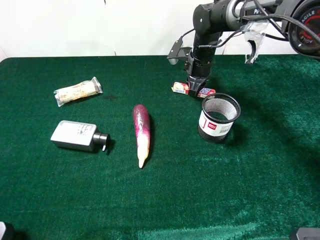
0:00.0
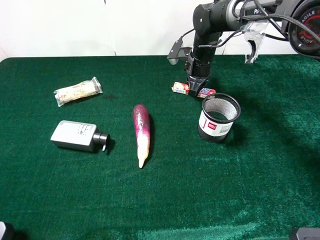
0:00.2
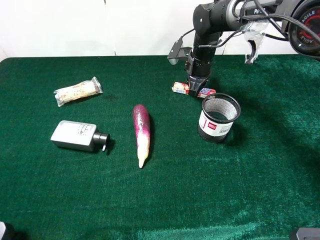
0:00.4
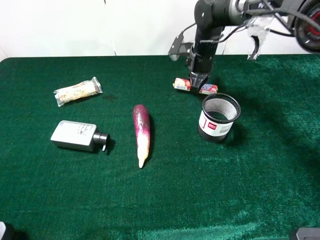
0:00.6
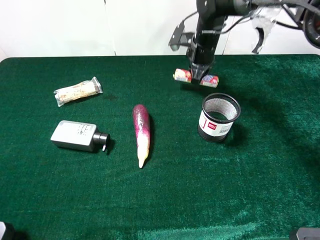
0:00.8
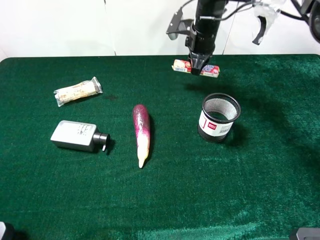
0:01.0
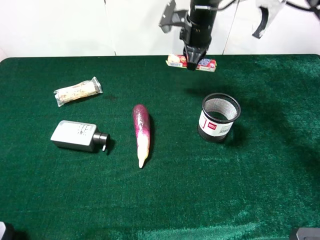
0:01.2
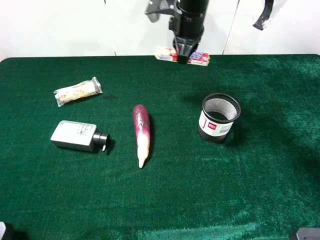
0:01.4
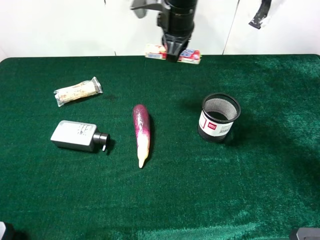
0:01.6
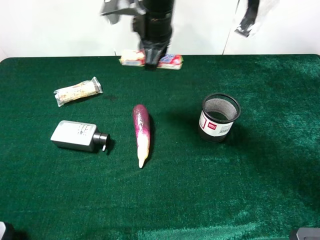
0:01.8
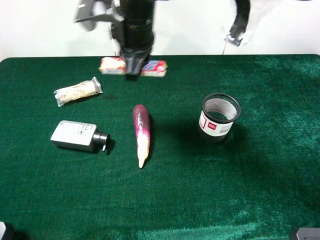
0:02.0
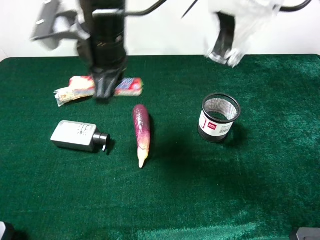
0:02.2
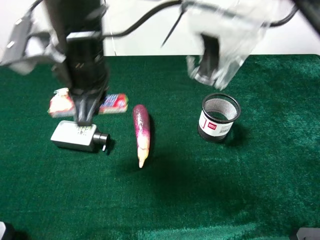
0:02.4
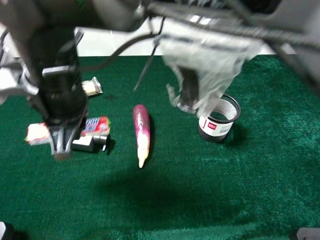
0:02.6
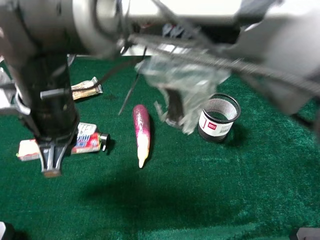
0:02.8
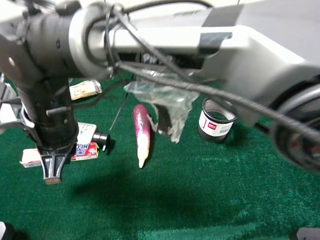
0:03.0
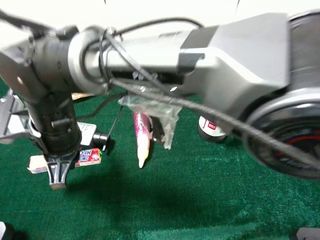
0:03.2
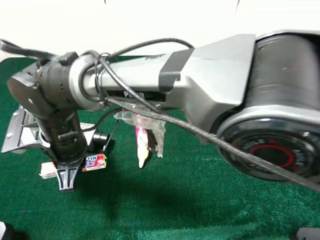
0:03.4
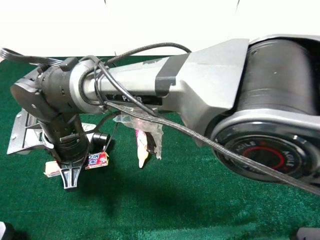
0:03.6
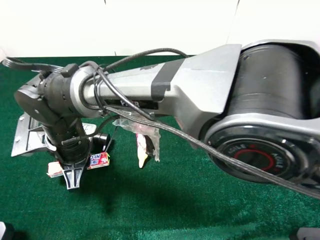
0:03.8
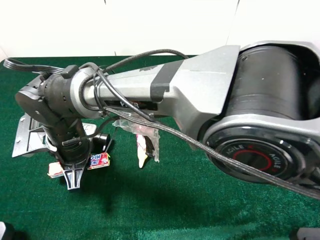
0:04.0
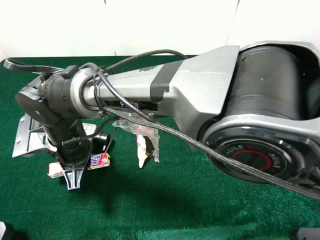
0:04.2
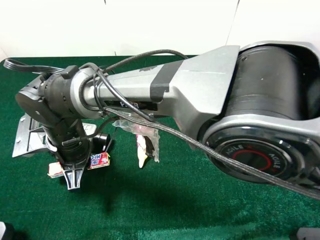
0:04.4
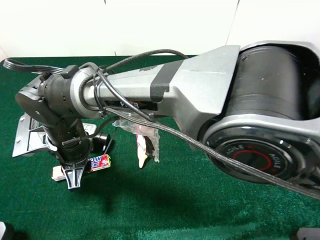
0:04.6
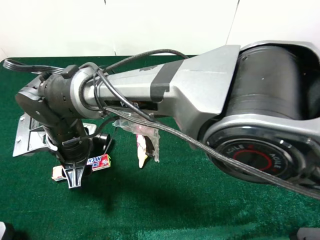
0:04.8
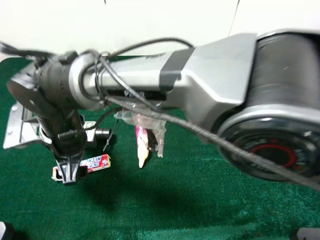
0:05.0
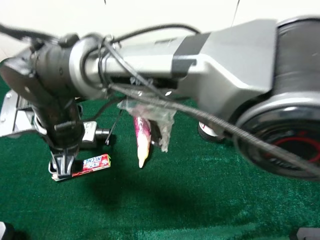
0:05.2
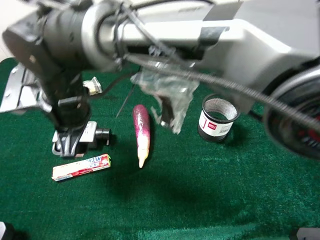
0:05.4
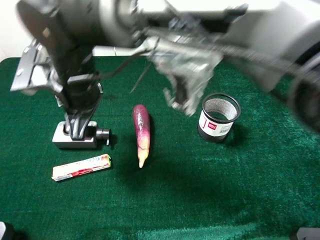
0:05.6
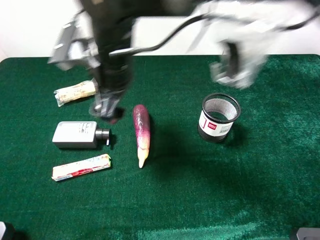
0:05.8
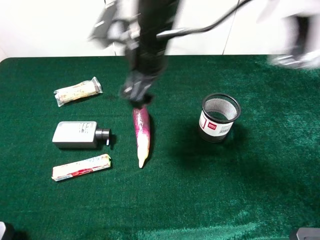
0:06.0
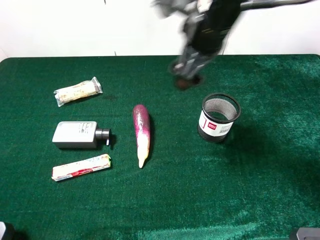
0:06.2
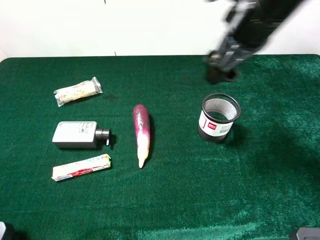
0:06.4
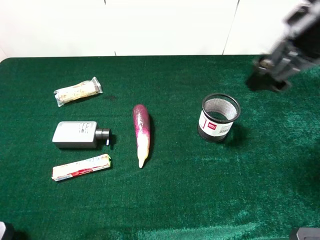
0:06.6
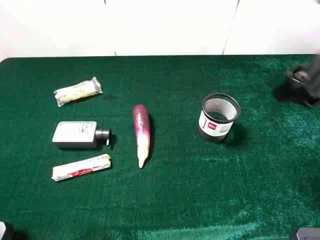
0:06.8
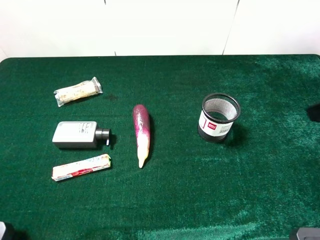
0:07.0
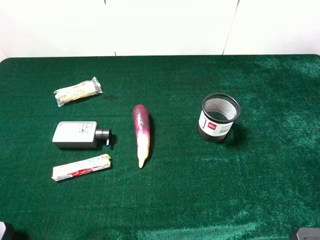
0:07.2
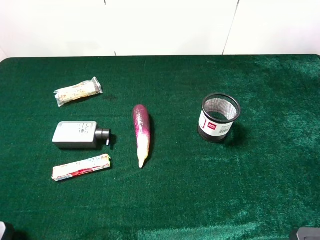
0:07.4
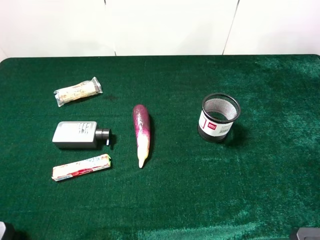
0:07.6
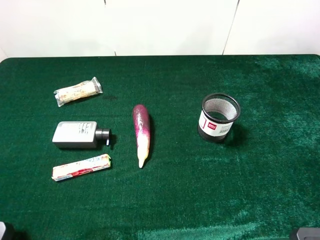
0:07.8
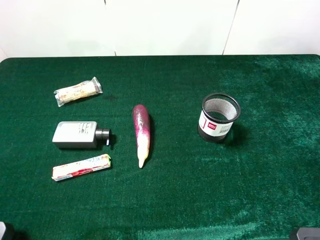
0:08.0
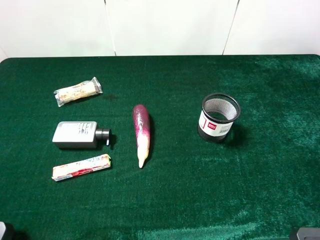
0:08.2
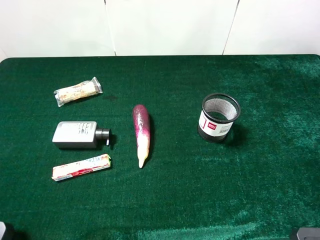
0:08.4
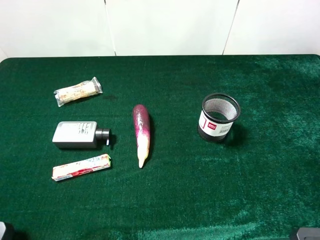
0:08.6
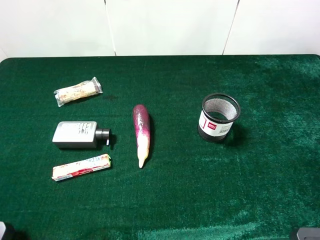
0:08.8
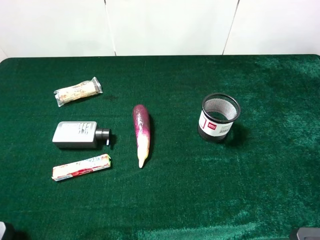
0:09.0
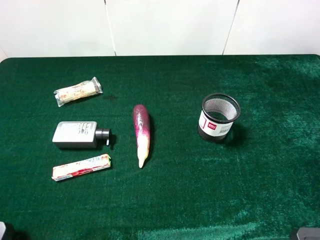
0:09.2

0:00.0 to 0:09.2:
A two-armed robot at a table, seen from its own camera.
Task of the whole recording: the gripper move the object.
Step, 0:00.2 to 0:04.6: Place the fruit candy on the table with the right gripper.
0:00.0 to 0:01.6: The right gripper heads upward, to the left and backward, covering about 20 cm.
0:01.6 to 0:03.0: The right gripper travels backward and to the left by some 25 cm.
0:03.0 to 0:04.6: The right gripper shifts roughly 5 cm downward, and opens.
0:04.6 to 0:06.2: The right gripper heads to the right and upward, covering some 30 cm, and opens up.
0:06.2 to 0:07.6: The right gripper goes about 30 cm backward and to the right.

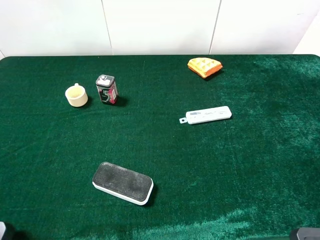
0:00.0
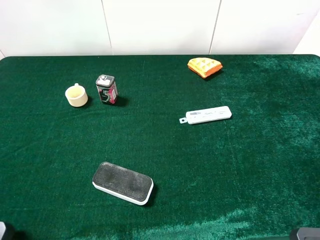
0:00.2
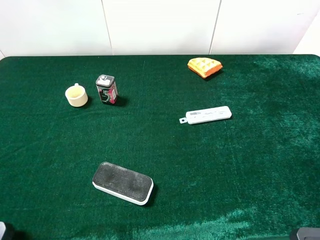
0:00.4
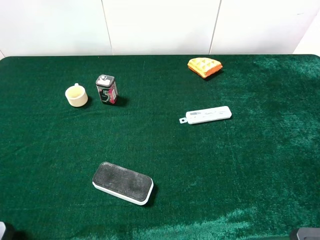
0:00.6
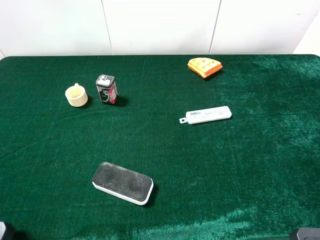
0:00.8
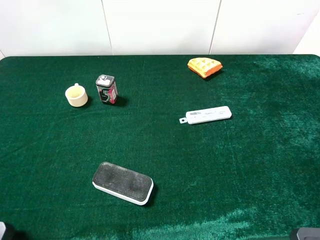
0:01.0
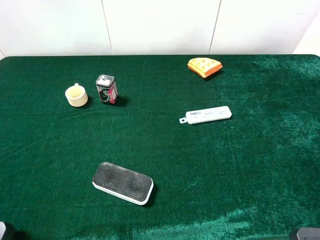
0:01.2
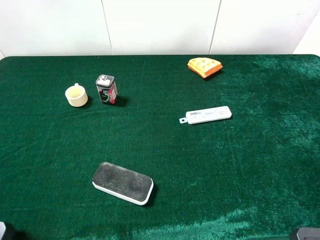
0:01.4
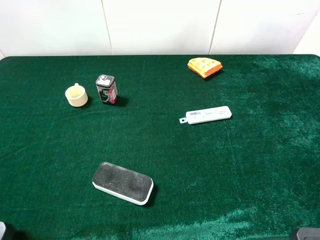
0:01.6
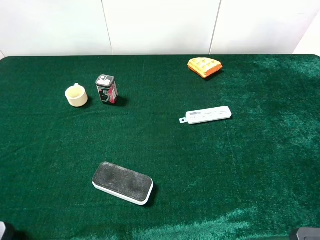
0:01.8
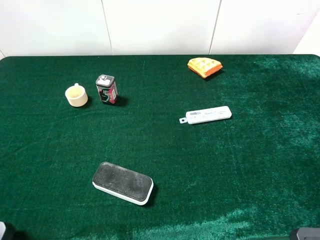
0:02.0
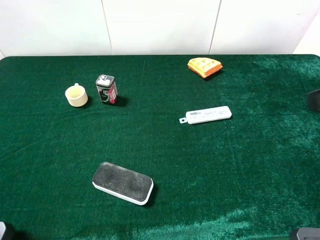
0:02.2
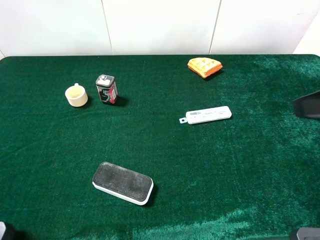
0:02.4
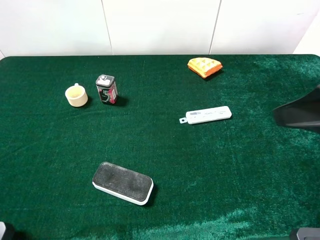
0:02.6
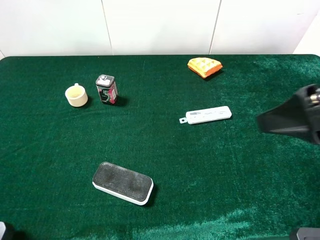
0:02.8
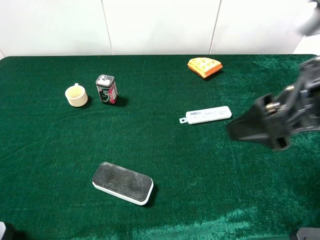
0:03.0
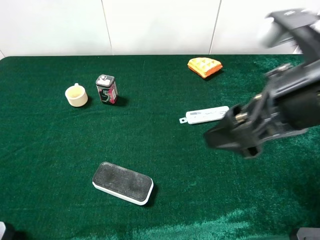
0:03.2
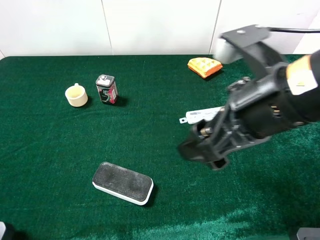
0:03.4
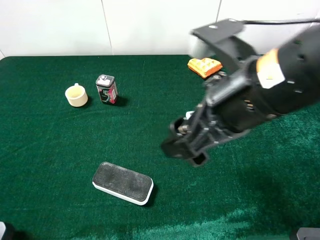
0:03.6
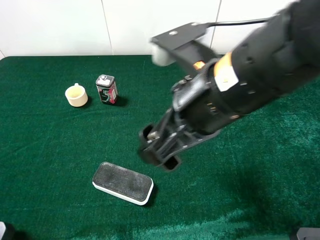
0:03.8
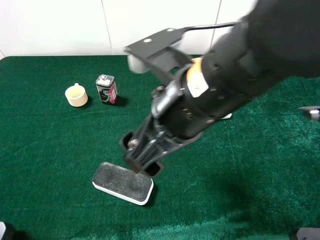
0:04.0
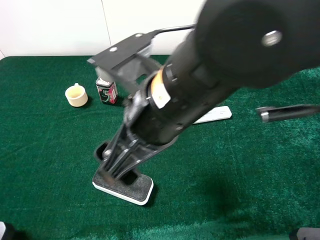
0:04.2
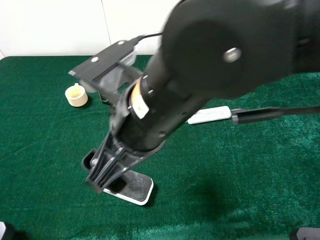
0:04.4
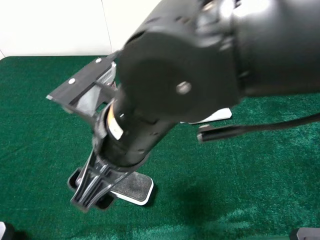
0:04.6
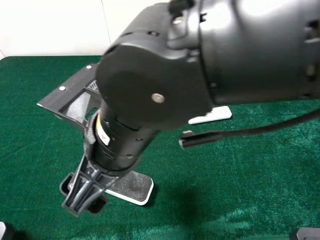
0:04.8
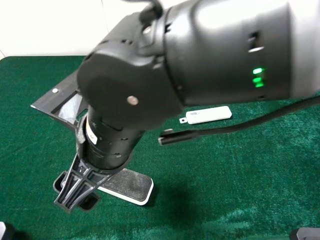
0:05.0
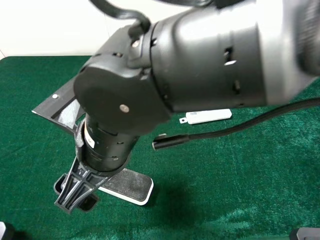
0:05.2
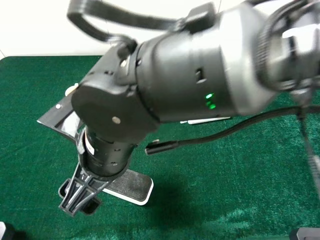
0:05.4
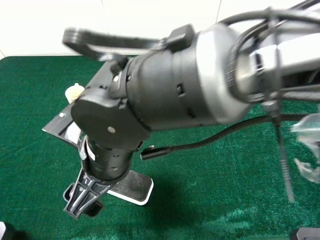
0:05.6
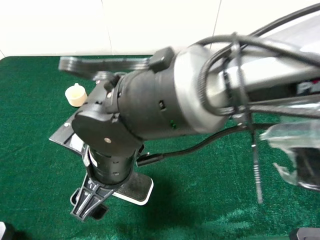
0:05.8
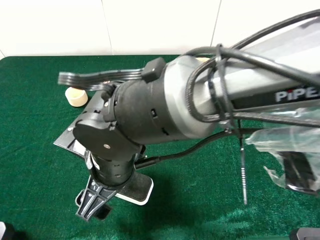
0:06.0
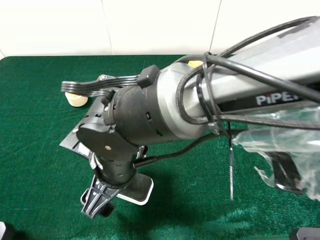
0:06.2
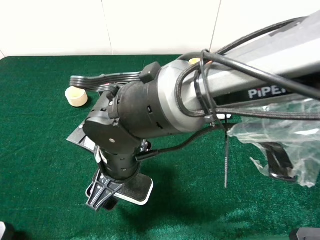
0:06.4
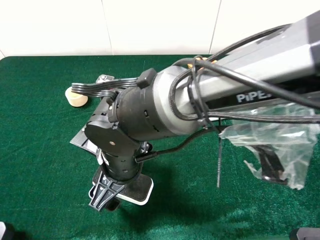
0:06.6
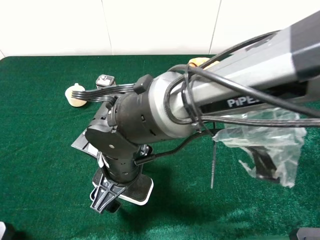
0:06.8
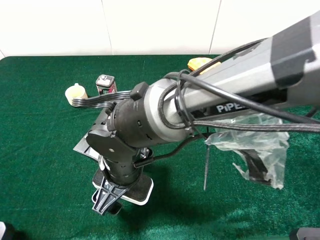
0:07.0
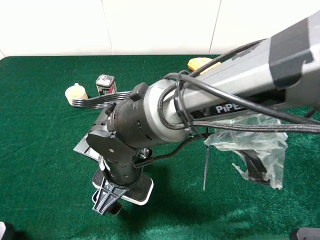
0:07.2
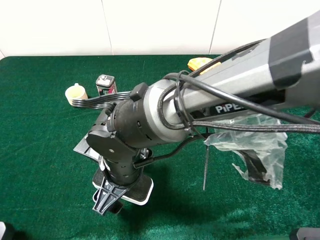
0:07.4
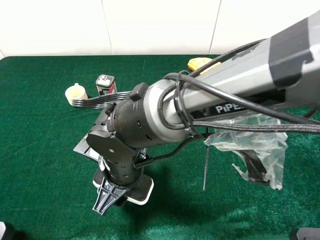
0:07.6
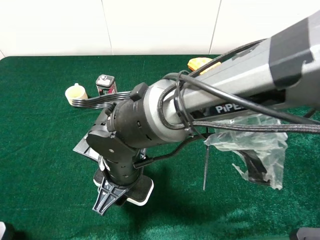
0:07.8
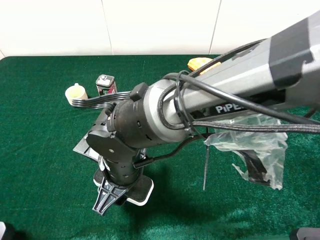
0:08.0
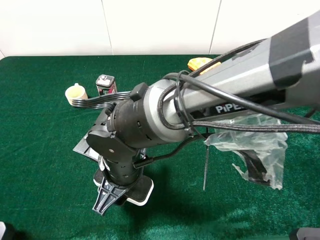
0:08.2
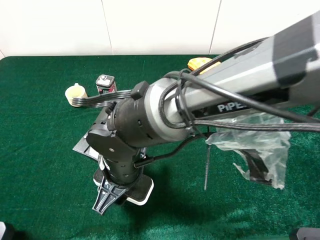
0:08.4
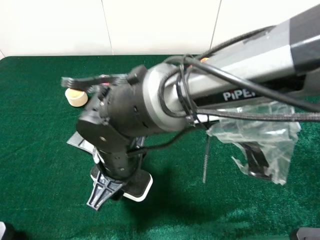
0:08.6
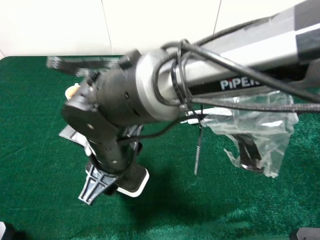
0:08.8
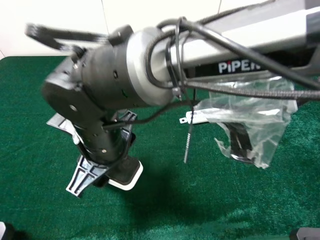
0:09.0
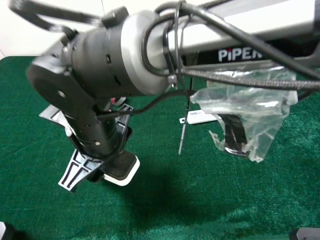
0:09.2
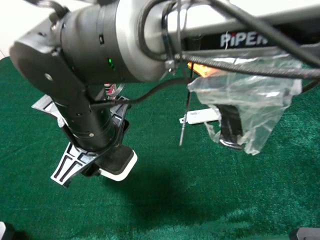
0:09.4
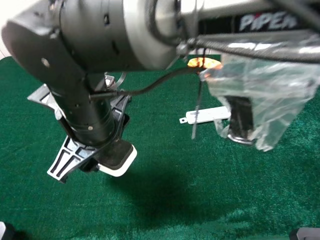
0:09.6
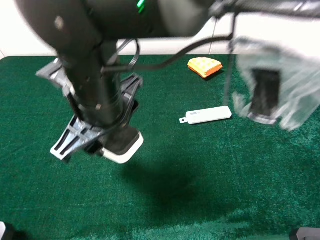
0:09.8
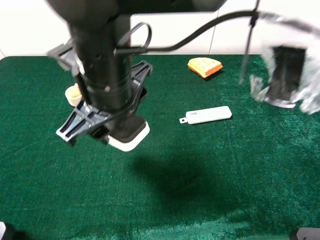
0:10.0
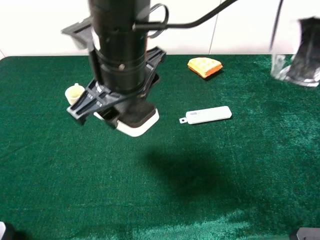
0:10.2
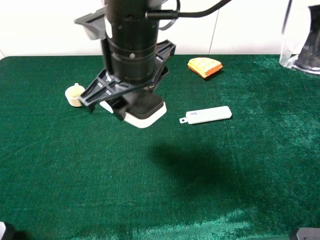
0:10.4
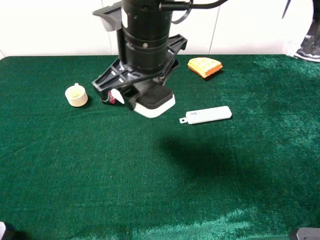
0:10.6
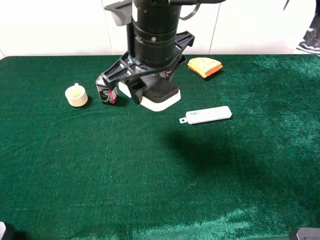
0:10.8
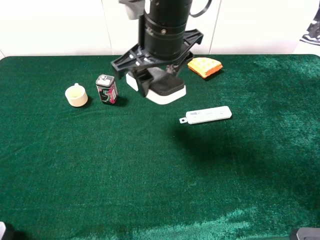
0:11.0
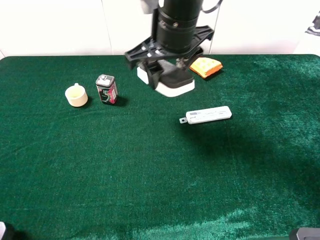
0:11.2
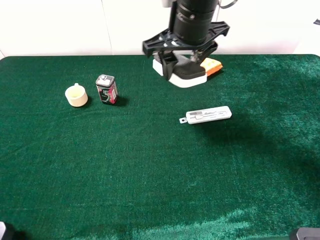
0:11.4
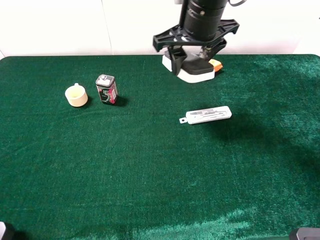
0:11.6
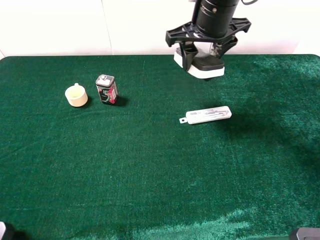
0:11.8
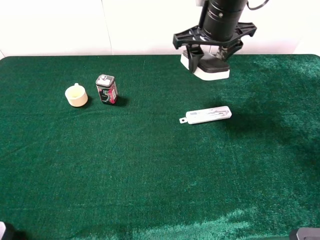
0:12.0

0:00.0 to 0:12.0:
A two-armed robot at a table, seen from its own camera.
Task of the whole recording: the gripper move the object.
Step, 0:00.0 to 0:08.4: Grasp the white blackboard earser with the right gripper.
0:01.6 to 0:03.0: The right gripper heads to the left and forward, covering roughly 15 cm.
0:03.0 to 0:04.4: The right gripper goes approximately 20 cm to the left.
0:04.4 to 0:06.0: The right gripper goes roughly 10 cm downward and to the left.
0:06.0 to 0:07.6: The right gripper closes up.
0:07.6 to 0:09.0: The right gripper shifts some 5 cm upward.
0:09.0 to 0:10.4: The right gripper shifts roughly 15 cm upward, forward and to the right.
0:10.4 to 0:12.0: The right gripper is displaced to the right and forward by some 20 cm.

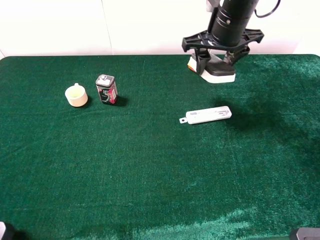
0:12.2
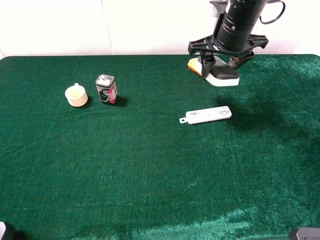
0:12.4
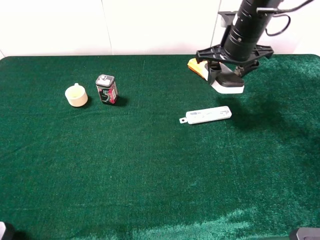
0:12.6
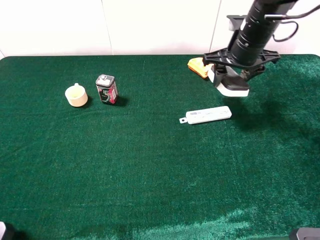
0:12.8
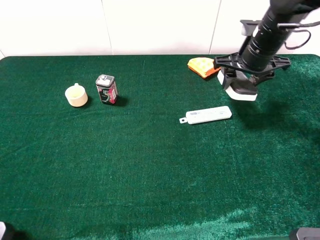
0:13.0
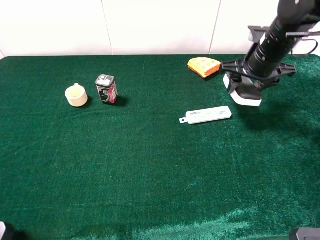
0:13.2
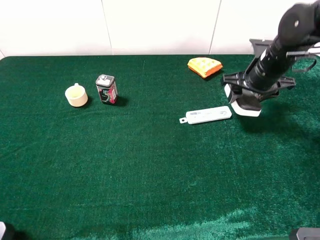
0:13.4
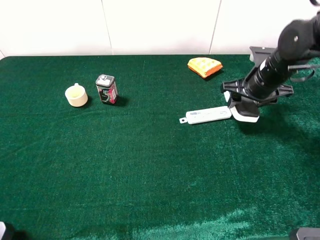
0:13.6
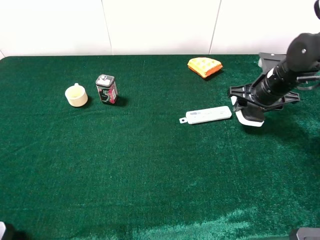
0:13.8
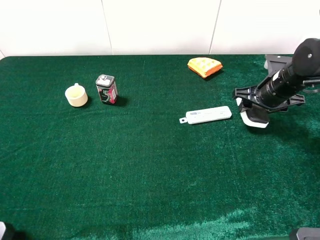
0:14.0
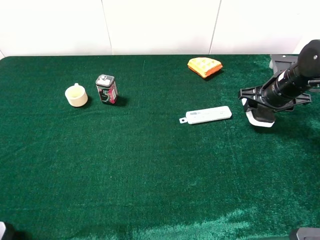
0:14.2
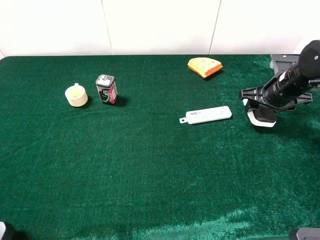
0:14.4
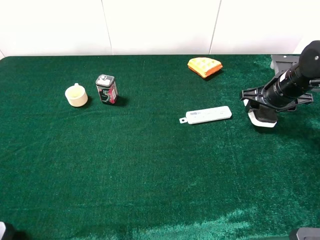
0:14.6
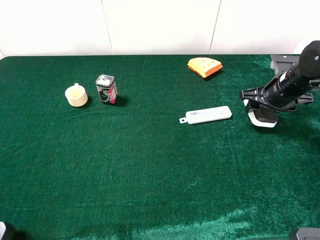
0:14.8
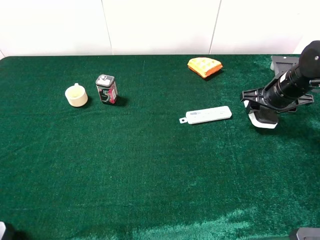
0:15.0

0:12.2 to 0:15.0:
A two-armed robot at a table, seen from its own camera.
Task of the whole recording: the gripper move the object.
0:12.2 to 0:13.6: The right gripper heads to the right and downward, covering about 15 cm.
0:13.6 to 0:15.0: The right gripper moves some 5 cm.
